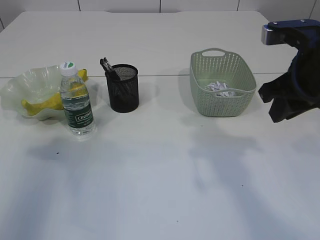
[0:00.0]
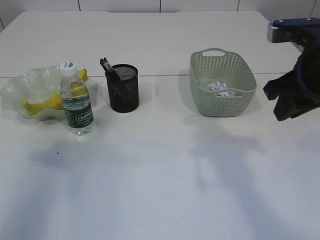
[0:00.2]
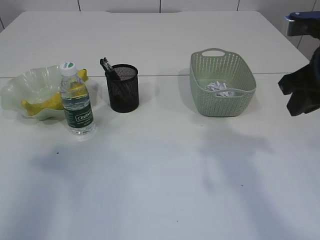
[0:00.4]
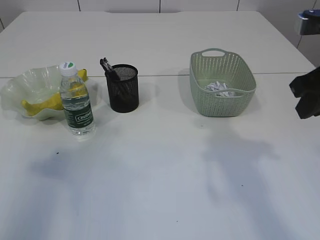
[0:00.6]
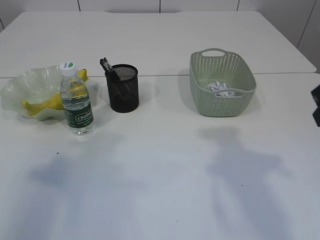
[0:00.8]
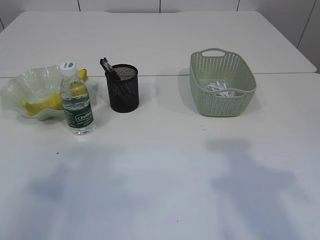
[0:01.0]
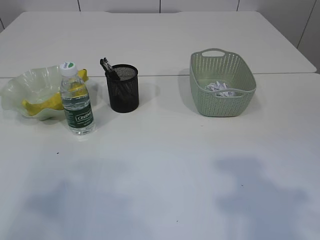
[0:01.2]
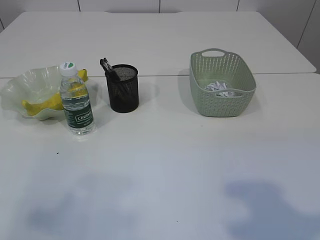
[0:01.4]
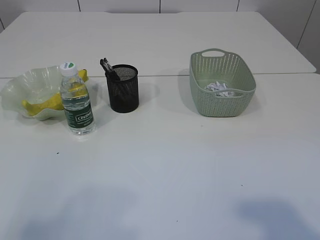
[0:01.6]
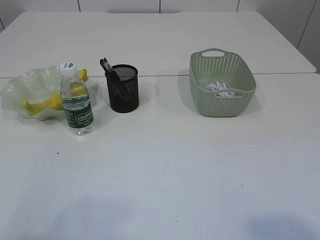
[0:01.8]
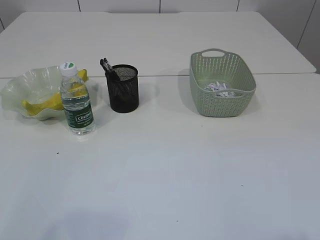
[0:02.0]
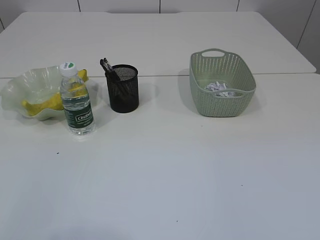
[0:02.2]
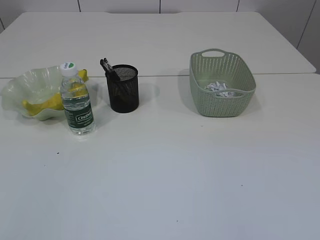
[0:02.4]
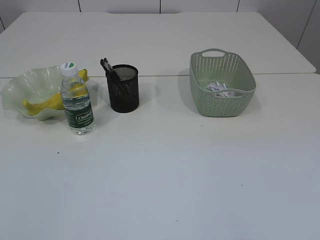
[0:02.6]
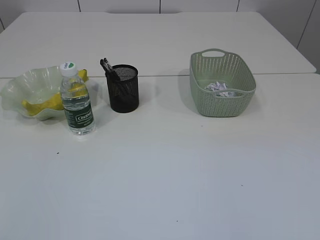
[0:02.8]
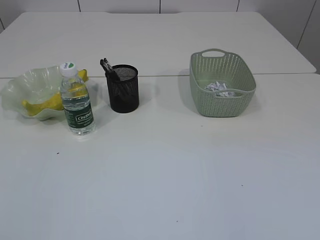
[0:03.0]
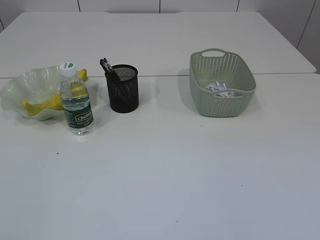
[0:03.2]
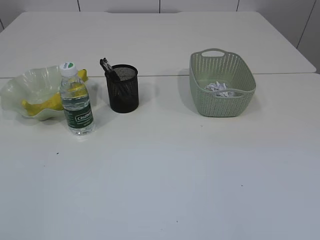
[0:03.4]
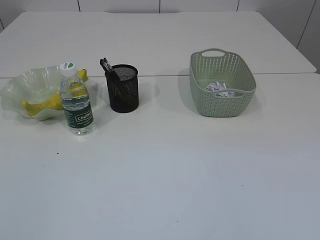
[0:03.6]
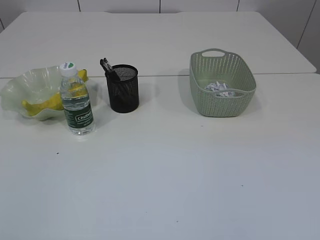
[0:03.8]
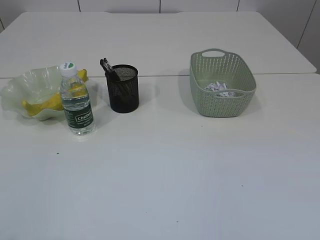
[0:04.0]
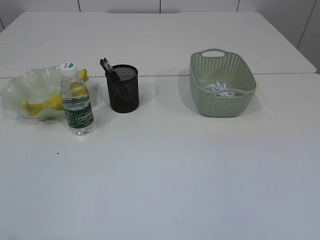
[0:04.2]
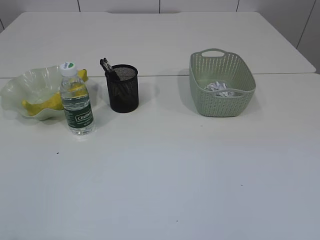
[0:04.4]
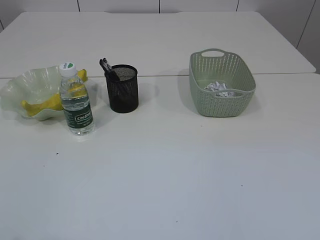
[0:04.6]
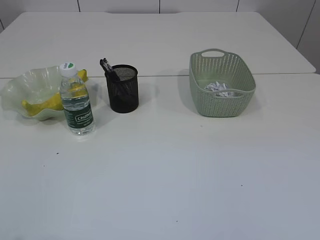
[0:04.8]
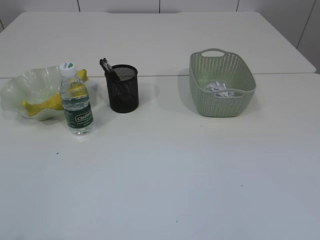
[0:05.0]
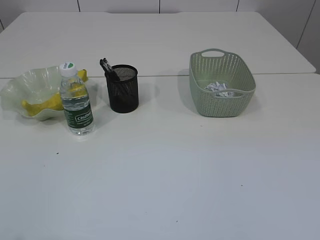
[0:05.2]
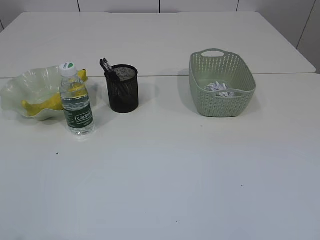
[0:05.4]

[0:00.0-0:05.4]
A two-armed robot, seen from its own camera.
0:00.0 to 0:01.4: The right gripper heads backward and upward, covering about 20 cm. The left gripper heads backward, covering roughly 15 cm.
0:01.4 to 0:02.8: The right gripper is displaced backward by roughly 15 cm.
0:04.0 to 0:05.4: Neither gripper changes place.
